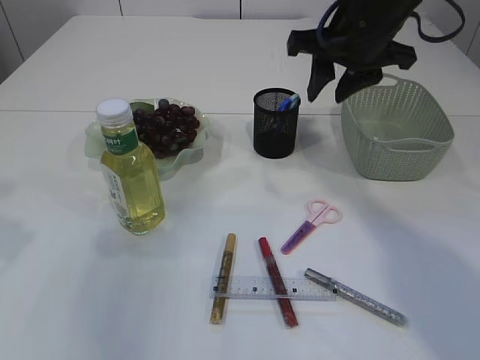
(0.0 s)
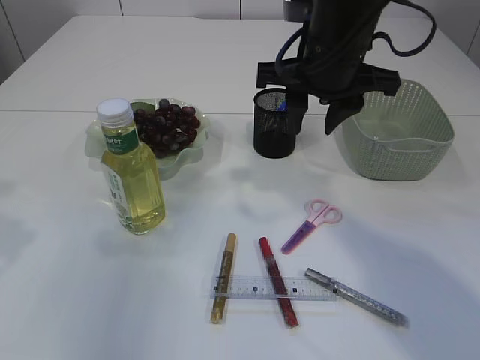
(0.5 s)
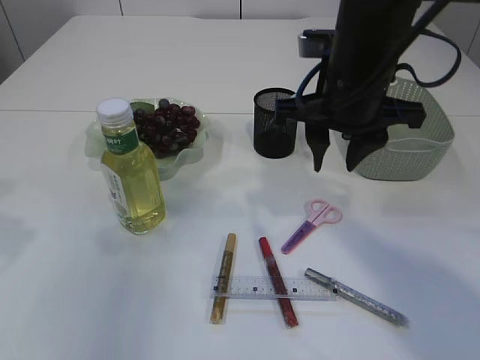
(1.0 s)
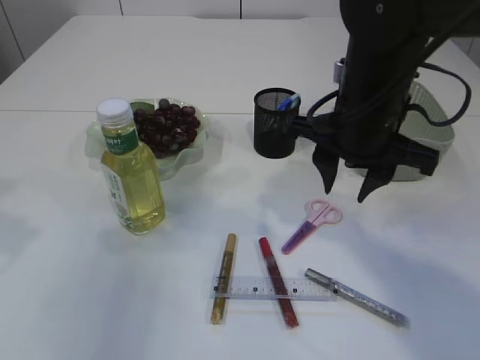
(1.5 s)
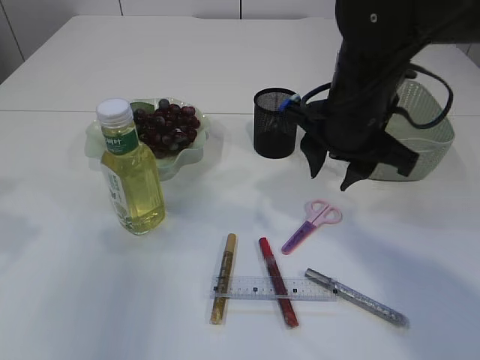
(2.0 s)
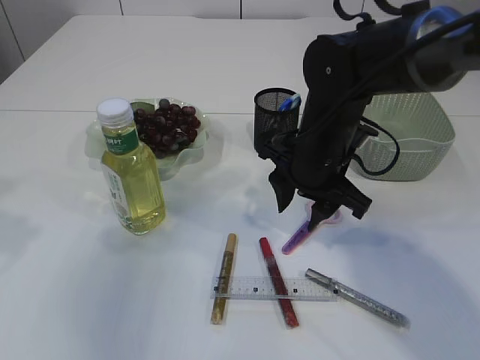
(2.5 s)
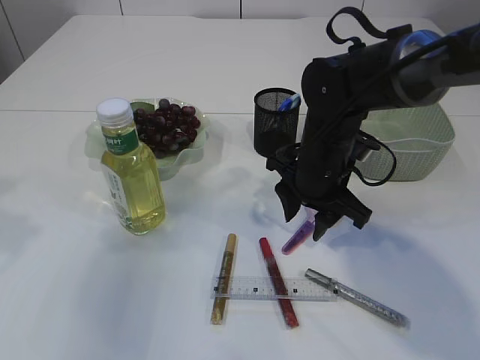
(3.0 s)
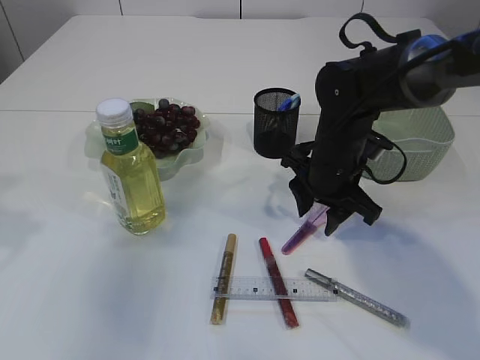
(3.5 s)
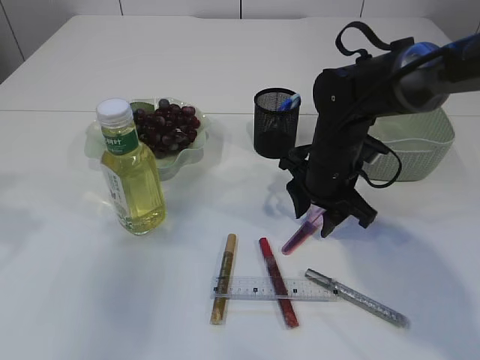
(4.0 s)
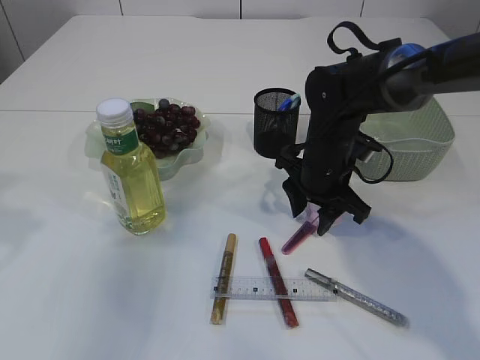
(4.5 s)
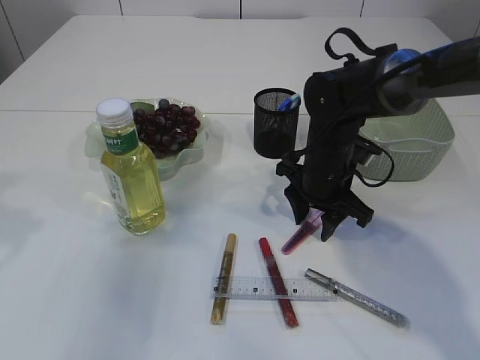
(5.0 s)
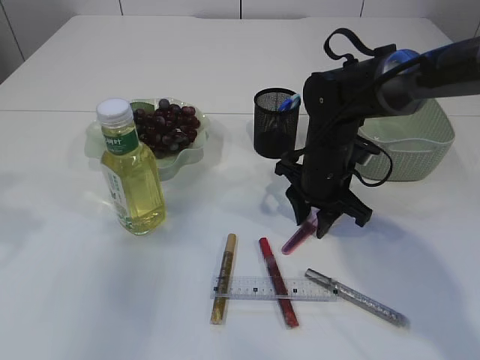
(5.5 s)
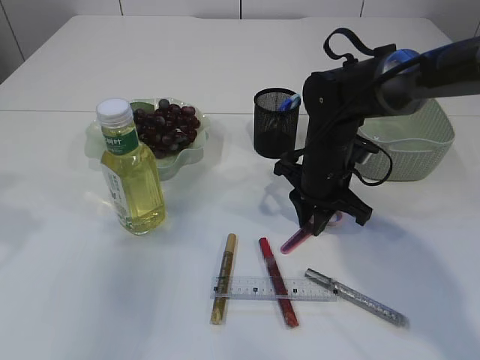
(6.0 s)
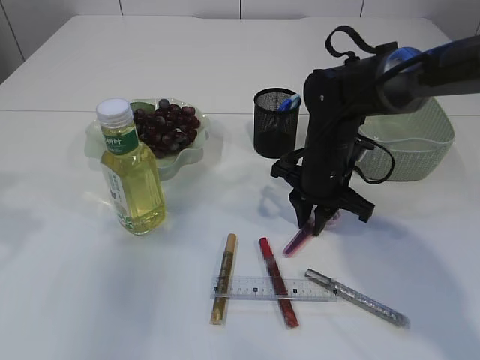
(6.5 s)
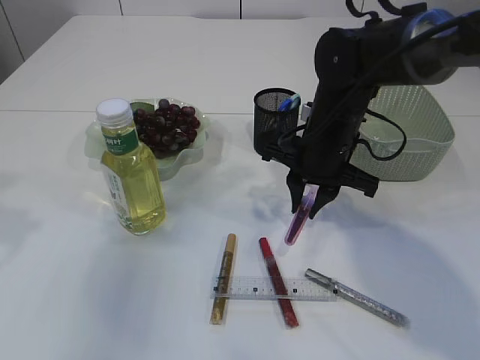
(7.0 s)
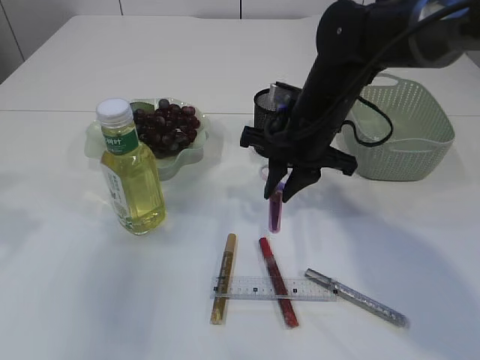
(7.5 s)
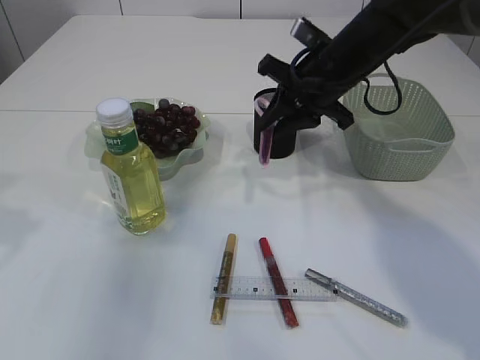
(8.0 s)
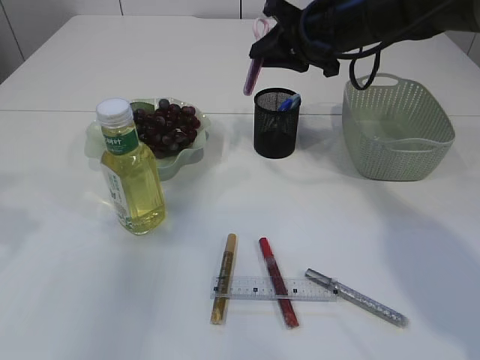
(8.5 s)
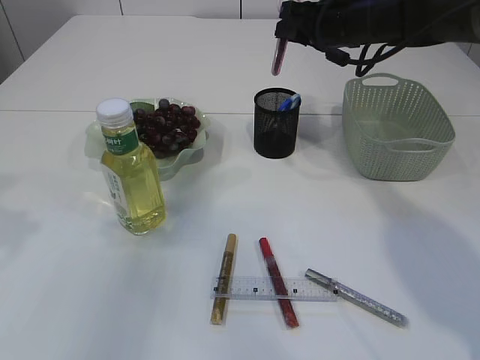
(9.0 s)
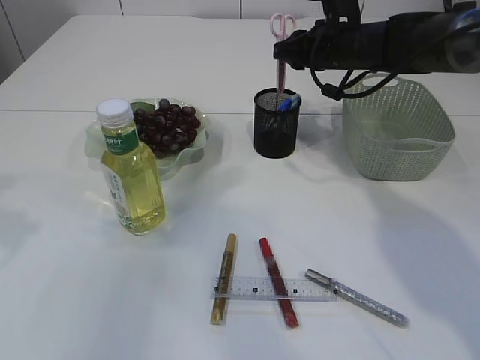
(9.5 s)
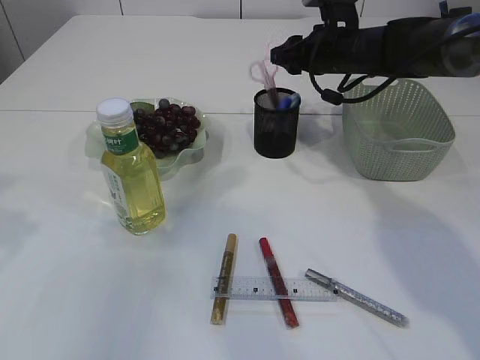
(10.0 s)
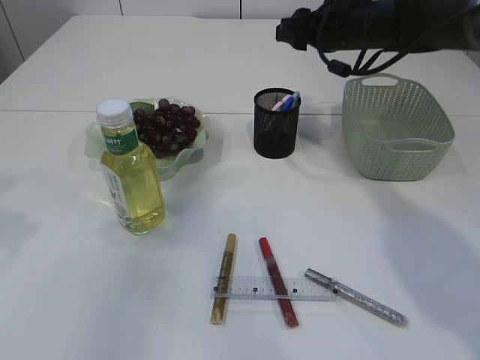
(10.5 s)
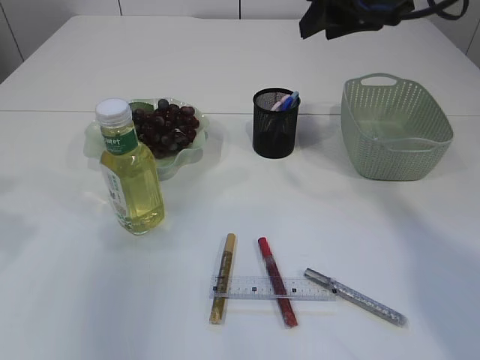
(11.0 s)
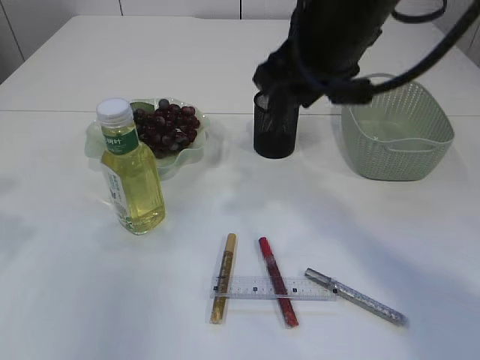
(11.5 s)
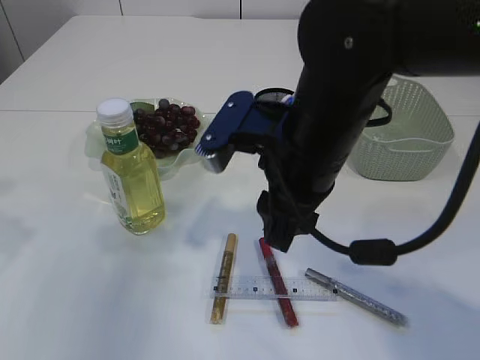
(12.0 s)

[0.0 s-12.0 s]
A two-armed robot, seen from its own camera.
Step, 0.0 to 6.5 s: pick up the pink scissors.
Step, 7.0 to 10.0 s: Place the pink scissors into the pen holder.
0.0 to 2.0 s: The right gripper heads downward and backward, covering approximately 10 cm.
2.0 to 4.0 s: The right gripper goes about 10 cm downward.
4.0 to 6.0 s: The right gripper closes its fingers.
6.0 to 8.0 s: The right gripper goes approximately 10 cm upward.
8.0 to 10.0 s: The right gripper travels forward by roughly 10 cm.
10.0 to 12.0 s: The right gripper goes some 25 cm backward and to the left.

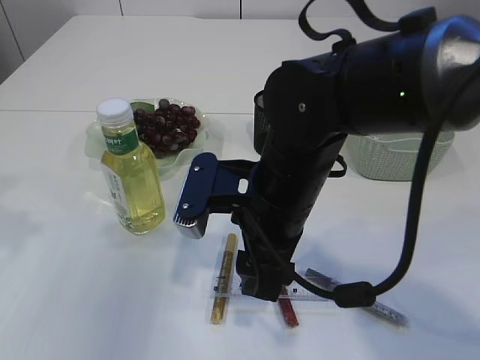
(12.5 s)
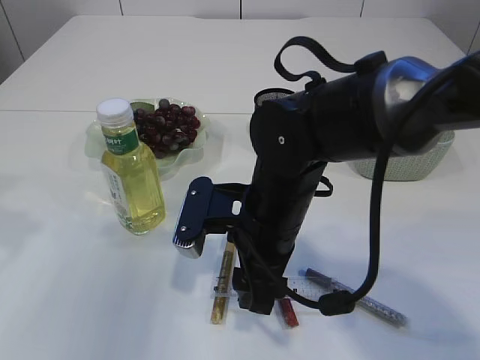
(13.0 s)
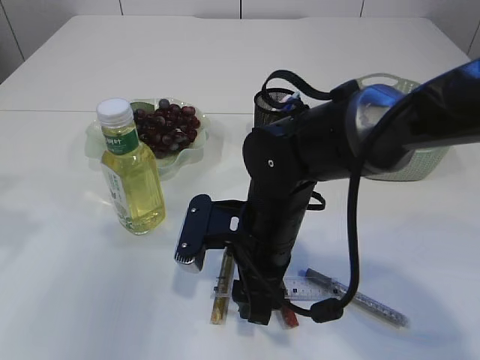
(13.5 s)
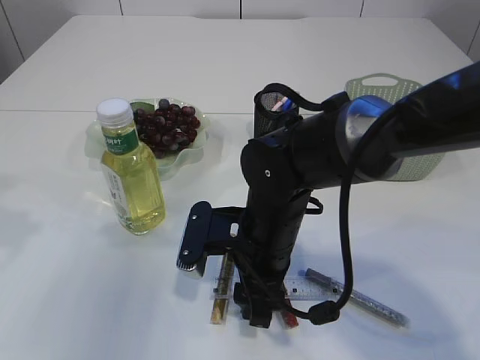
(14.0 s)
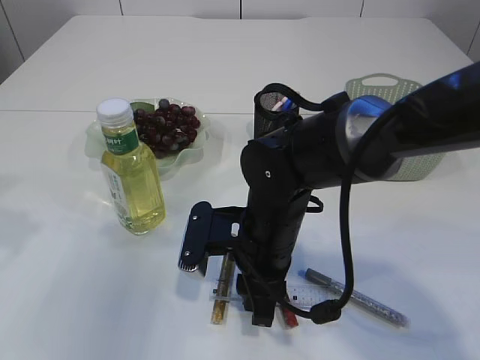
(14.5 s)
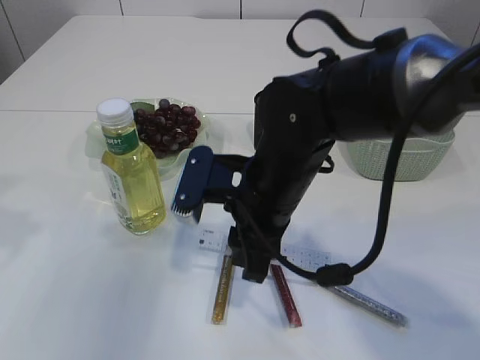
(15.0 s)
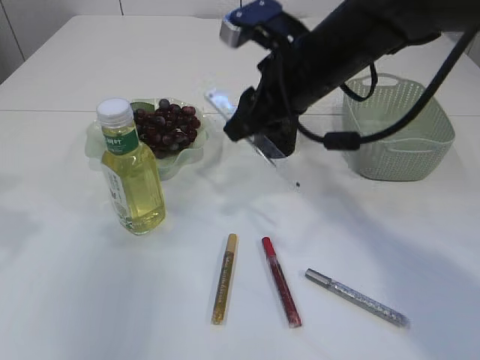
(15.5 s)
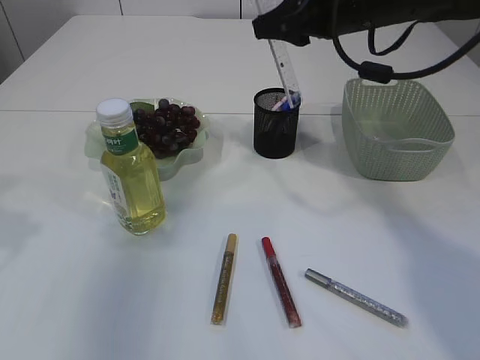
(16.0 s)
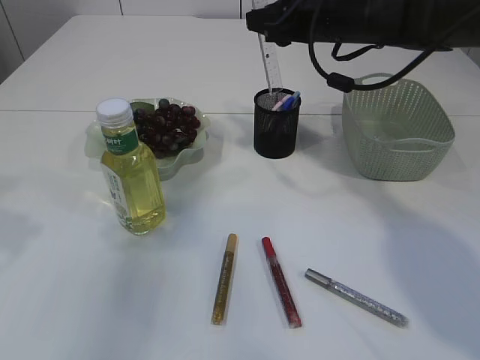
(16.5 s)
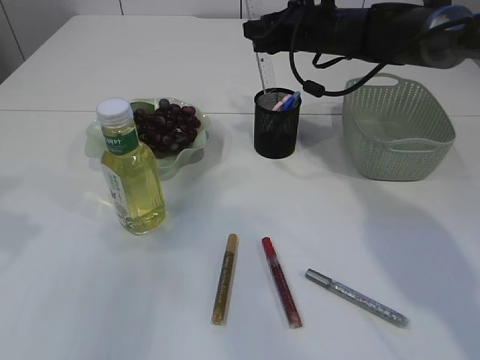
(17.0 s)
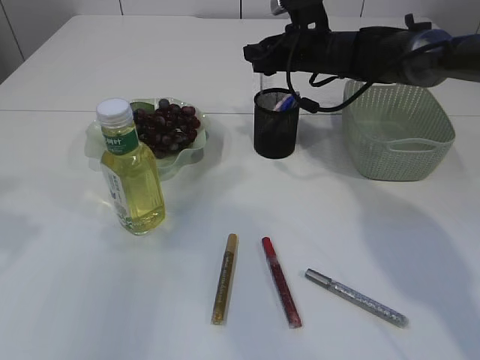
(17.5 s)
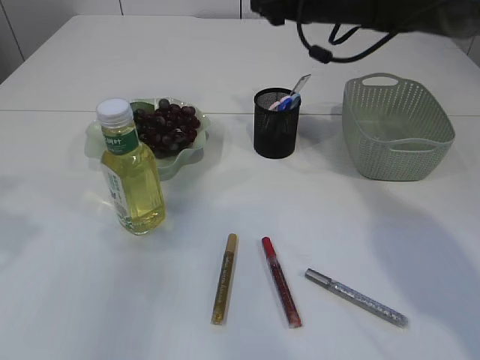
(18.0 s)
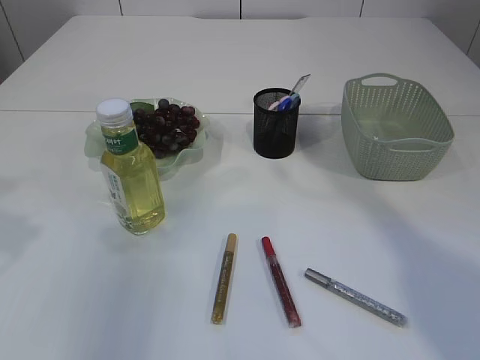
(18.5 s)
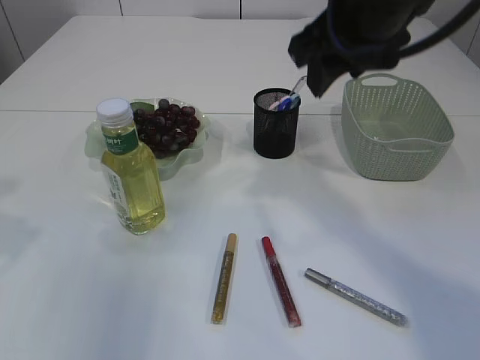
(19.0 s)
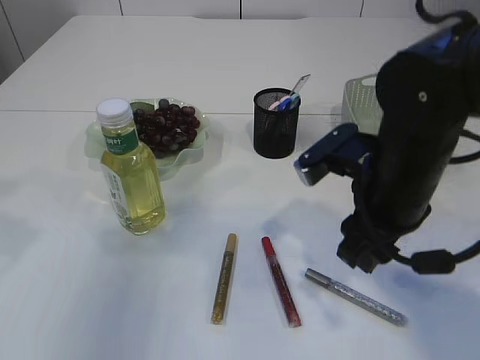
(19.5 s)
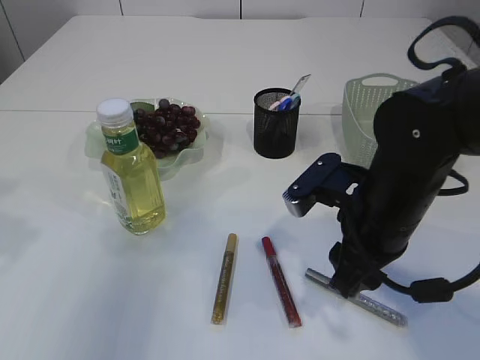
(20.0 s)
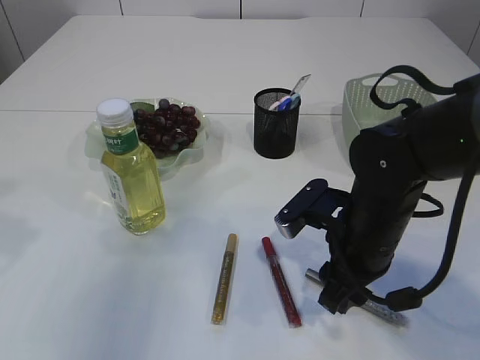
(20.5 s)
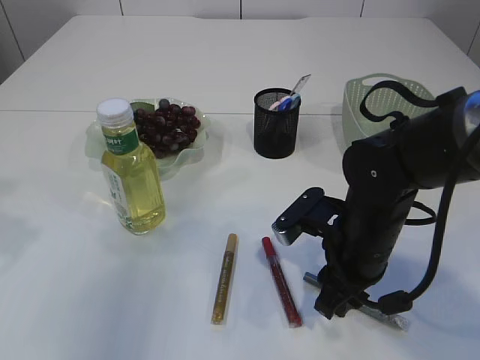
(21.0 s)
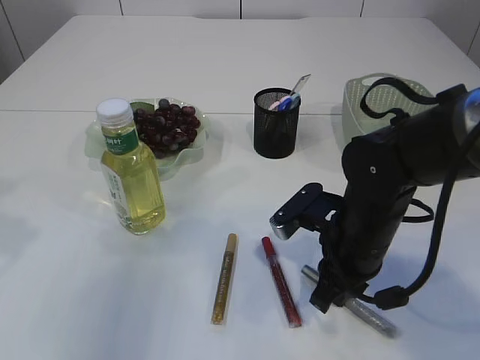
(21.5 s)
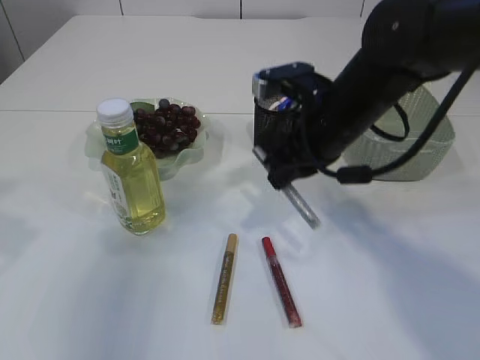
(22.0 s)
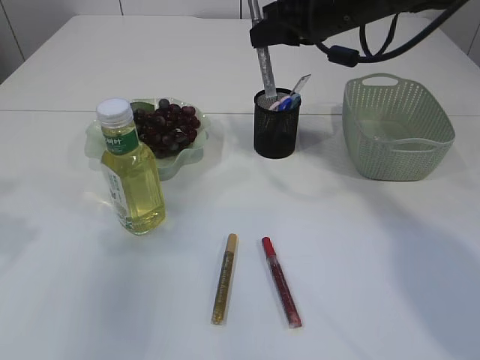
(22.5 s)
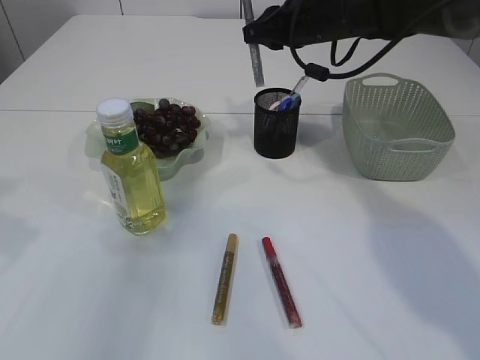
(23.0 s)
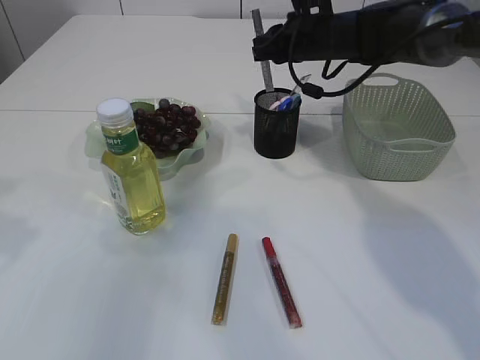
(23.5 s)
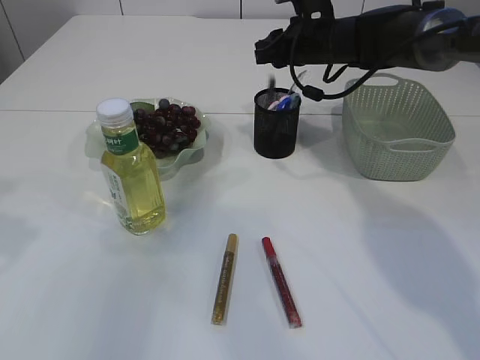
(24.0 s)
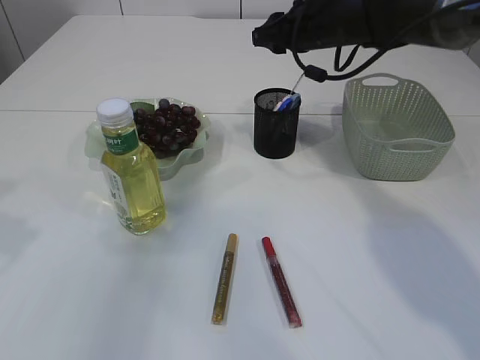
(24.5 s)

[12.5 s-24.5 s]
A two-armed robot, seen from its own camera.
Step, 12.5 to 14.5 s: pick up the ruler.
Step, 15.0 to 17.5 s: Place the ruler into the pen holder.
Step, 18.0 to 21.5 s: pick up the silver glue.
12.5 to 14.5 s: The right gripper shifts roughly 5 cm downward, and closes up.
14.5 to 16.5 s: The right gripper is displaced forward, upward and to the right by some 25 cm.
16.5 to 18.5 s: The right gripper heads upward and backward, covering some 15 cm.
18.5 to 20.5 s: The right gripper moves downward and backward, about 30 cm.
20.5 to 22.5 s: The right gripper heads upward and forward, covering roughly 25 cm, and closes up.
22.5 to 24.5 s: The right gripper shifts approximately 5 cm forward.

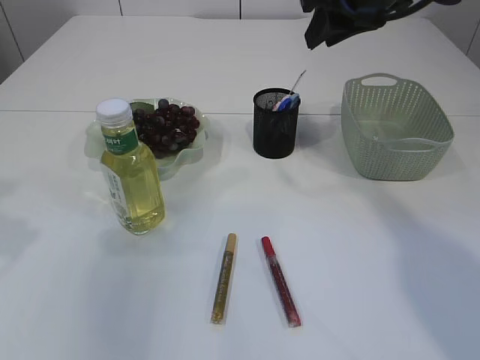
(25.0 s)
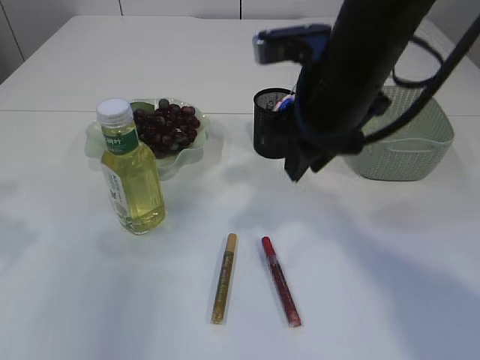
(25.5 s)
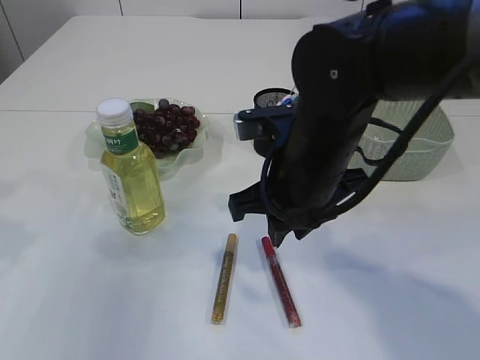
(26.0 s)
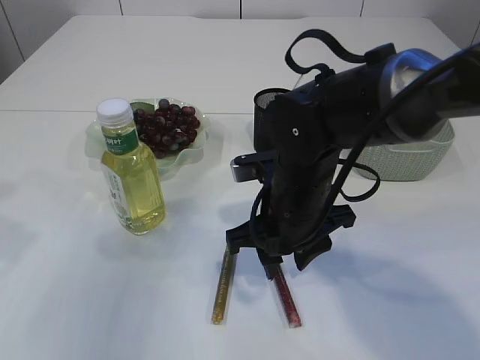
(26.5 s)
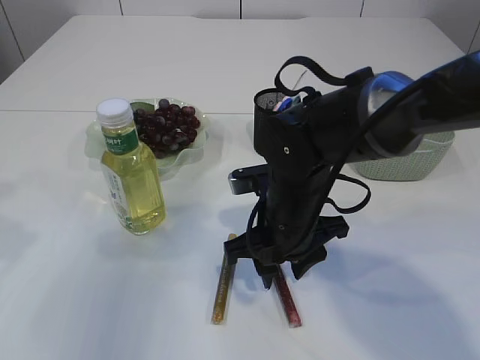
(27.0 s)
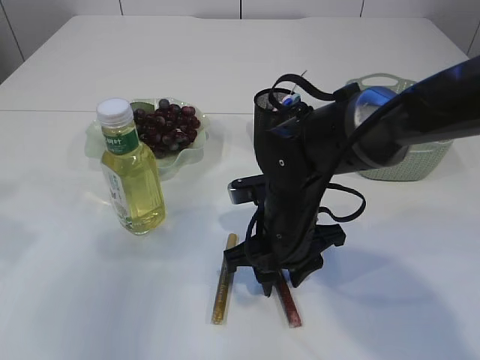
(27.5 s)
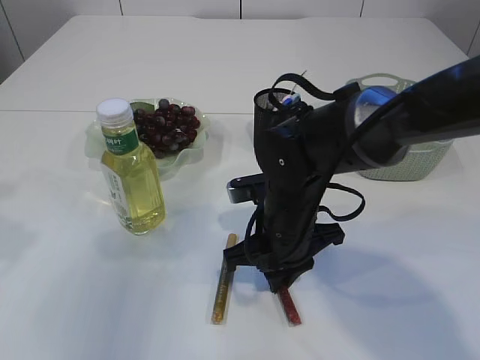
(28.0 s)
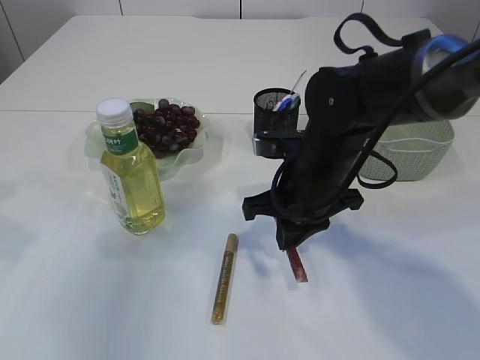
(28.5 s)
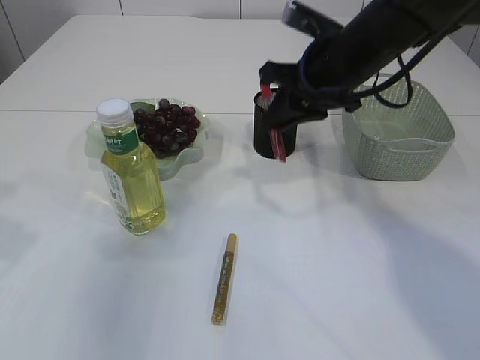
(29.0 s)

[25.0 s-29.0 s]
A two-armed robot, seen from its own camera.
Step, 25.0 to 28.0 s: pick up the red glue.
25.0 to 27.0 s: The right gripper travels downward, backward and to the left by about 25 cm.
27.0 to 29.0 s: The right gripper travels upward, forward and to the right by approximately 20 cm, and closes its fingers.
